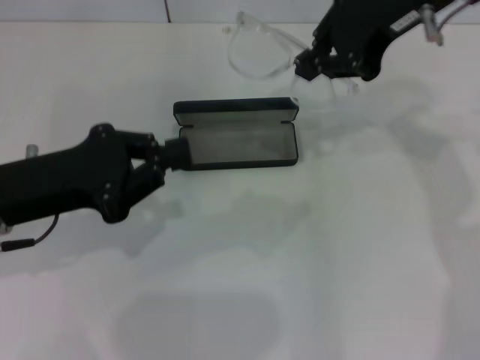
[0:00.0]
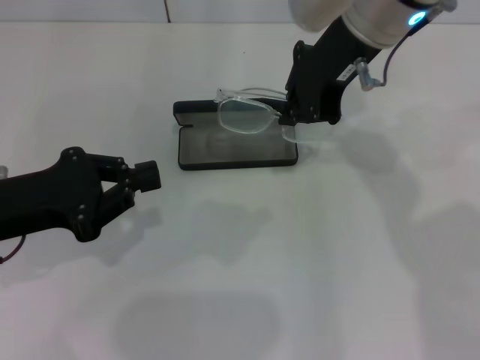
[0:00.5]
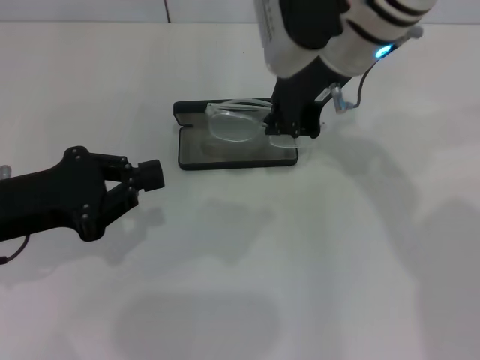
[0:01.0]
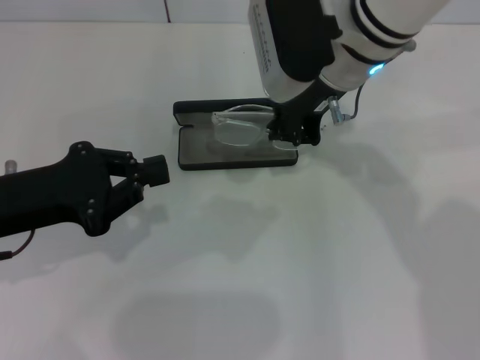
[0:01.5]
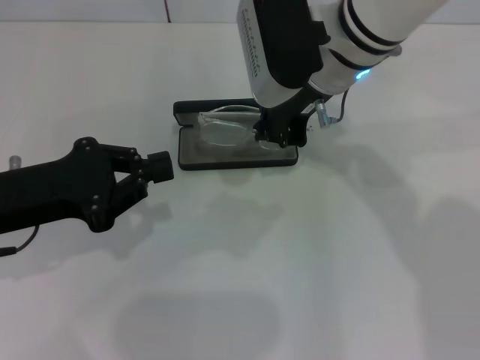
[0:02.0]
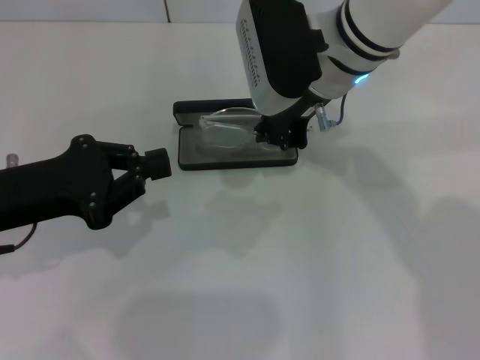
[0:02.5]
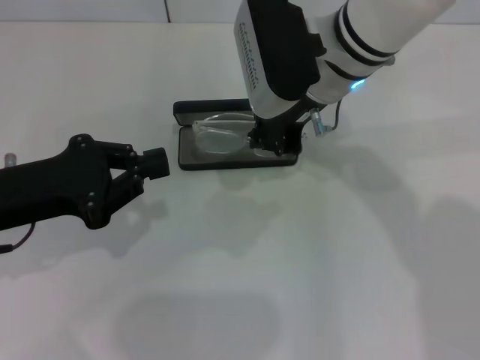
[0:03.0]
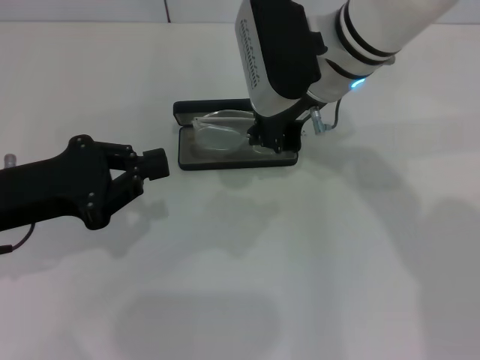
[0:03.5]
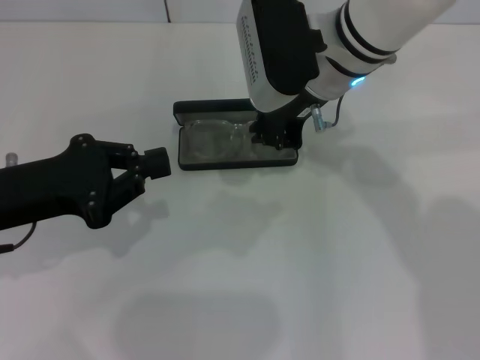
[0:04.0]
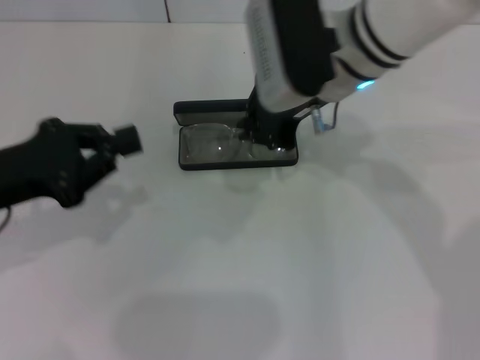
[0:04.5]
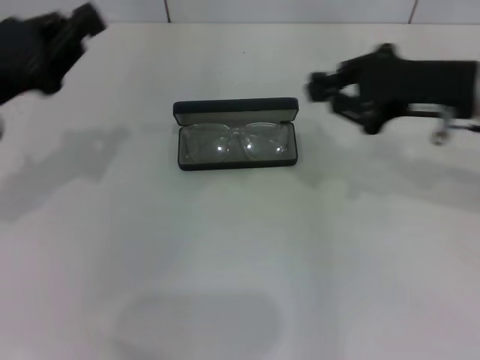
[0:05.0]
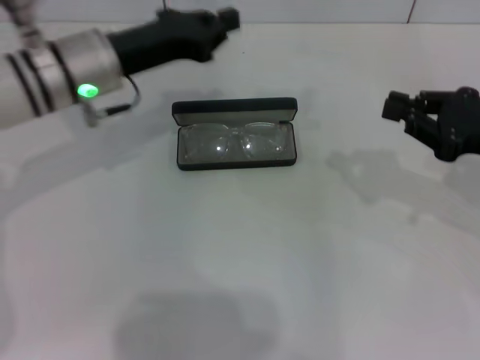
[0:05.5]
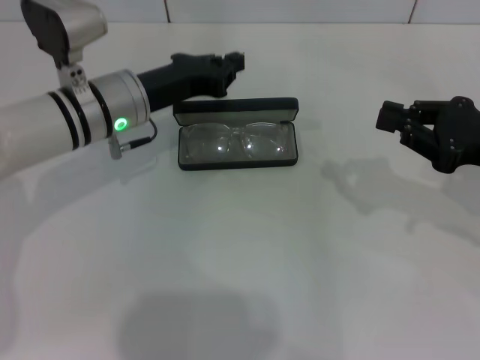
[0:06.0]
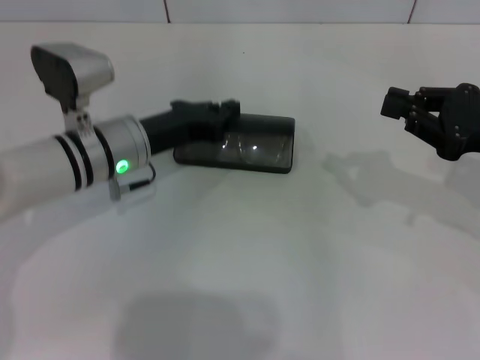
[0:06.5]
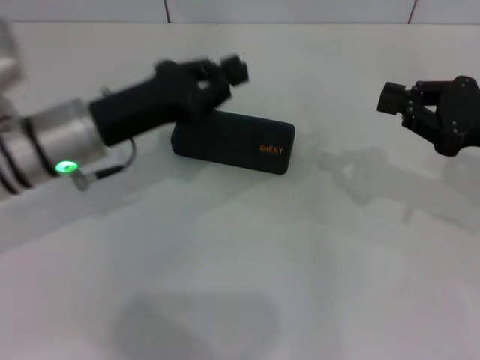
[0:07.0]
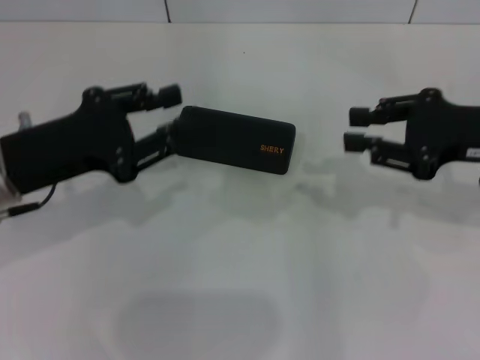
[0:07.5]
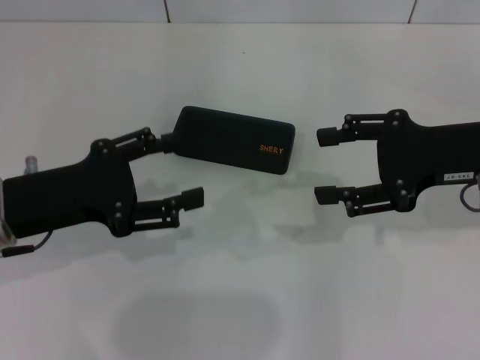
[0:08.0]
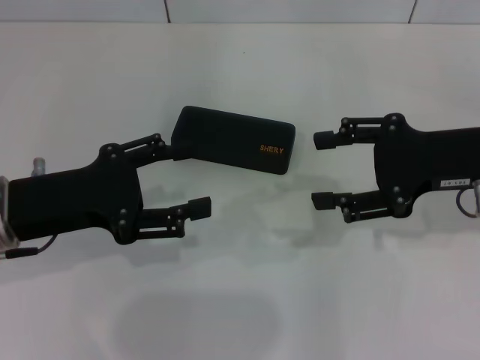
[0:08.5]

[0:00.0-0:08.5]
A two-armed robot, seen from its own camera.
Step, 0:00.0 to 0:04.0: Put the glasses into the case with your right hand.
Step, 0:05.0 to 0:06.5: Close the glasses case with your left hand.
0:00.0 to 0:02.0: The right gripper travels downward and to the left by approximately 15 cm.
0:02.0 to 0:04.0: The two grippers keep their place.
0:04.0 to 0:06.5: The right gripper moves to the right and backward, some 25 cm. Meanwhile the left gripper is displaced forward, to the right and downward by some 15 cm.
0:06.5 to 0:08.5: The left gripper goes about 15 cm backward, to the left and upward, and opens; the right gripper goes some 5 cm to the left, and opens.

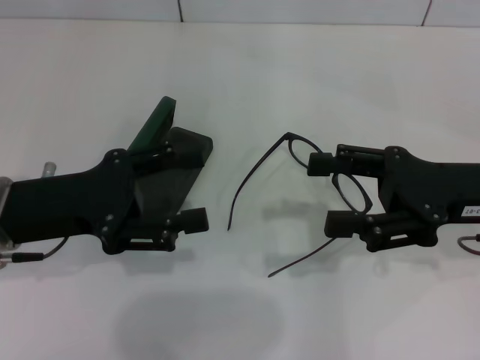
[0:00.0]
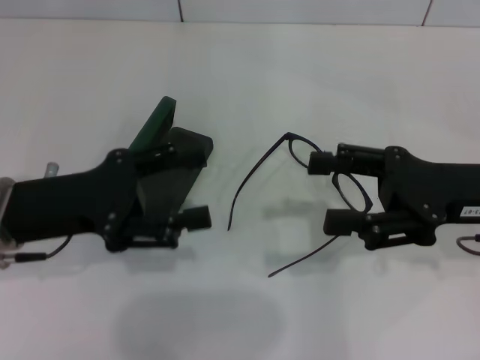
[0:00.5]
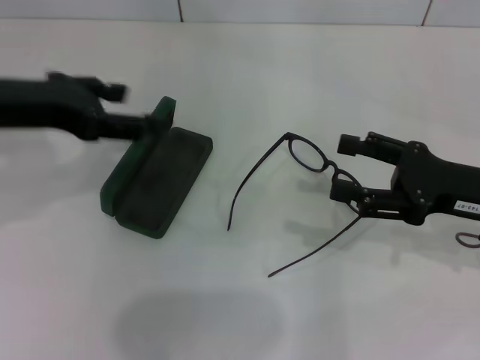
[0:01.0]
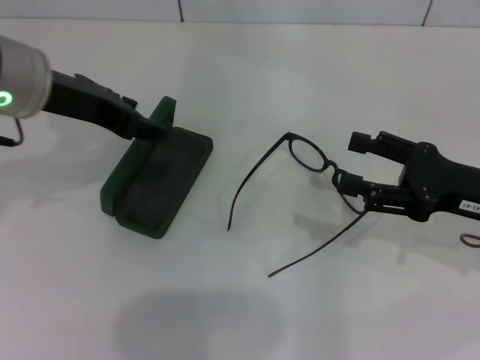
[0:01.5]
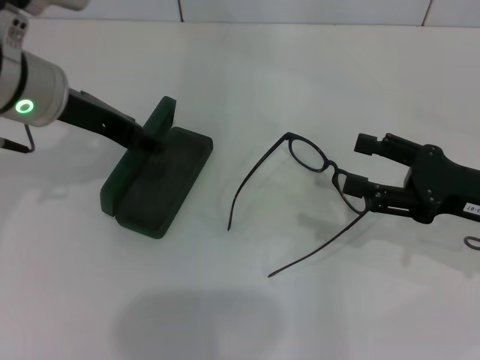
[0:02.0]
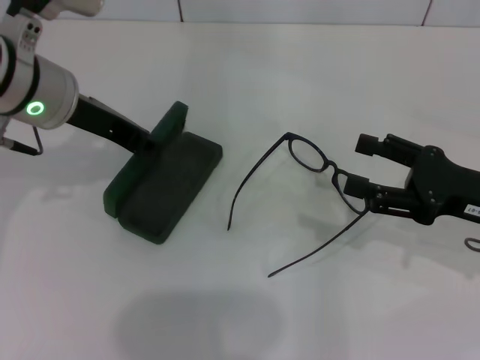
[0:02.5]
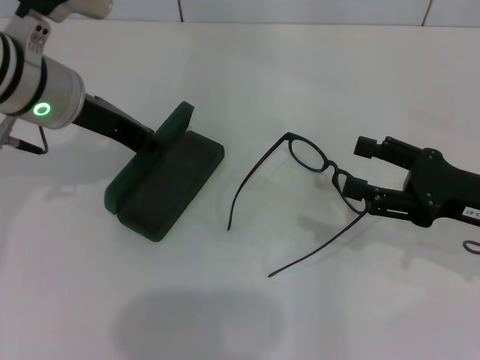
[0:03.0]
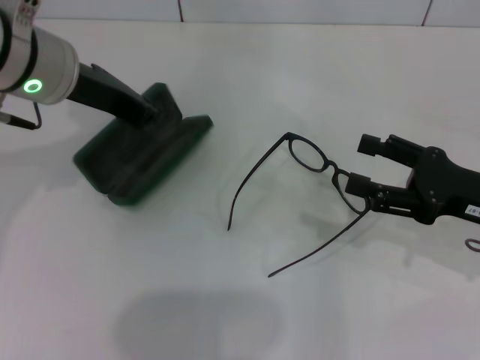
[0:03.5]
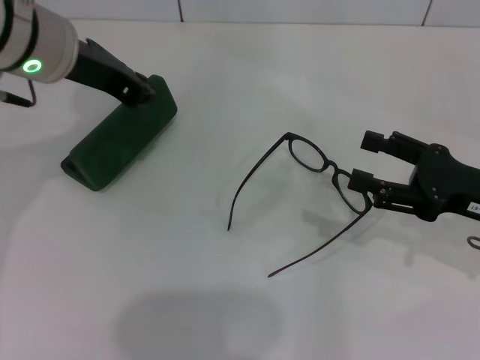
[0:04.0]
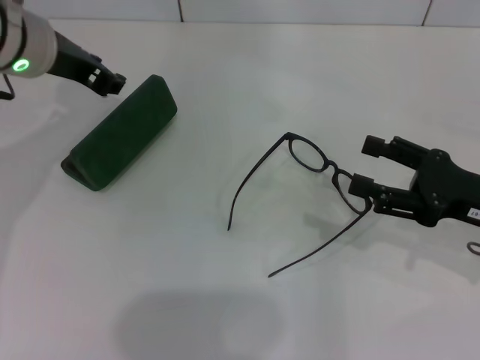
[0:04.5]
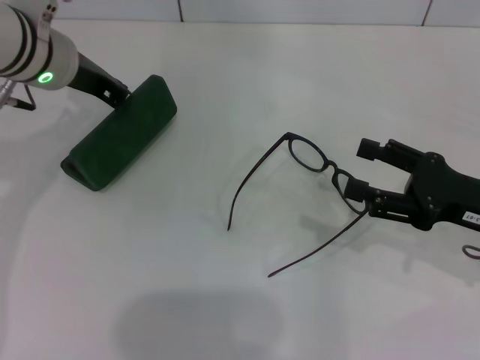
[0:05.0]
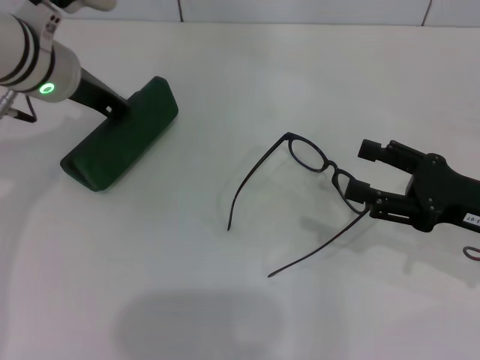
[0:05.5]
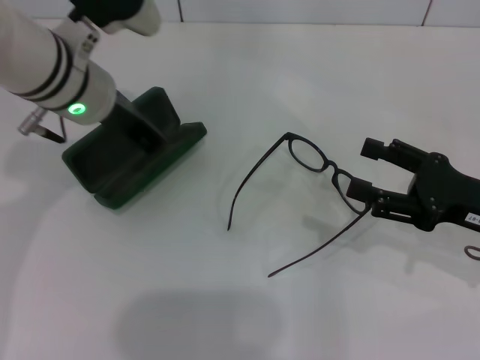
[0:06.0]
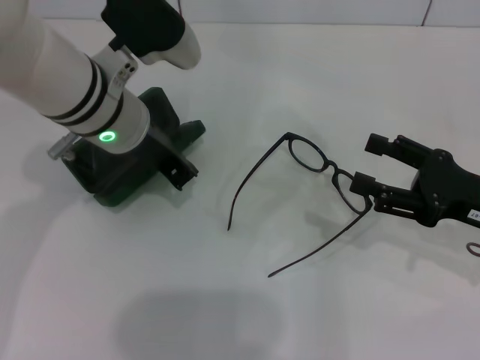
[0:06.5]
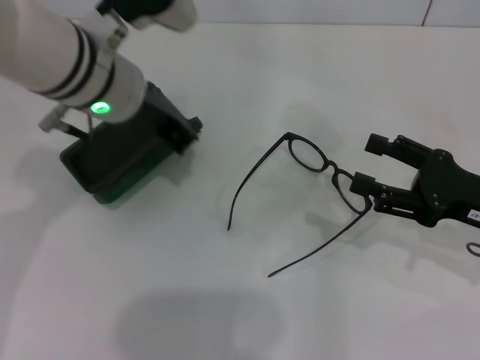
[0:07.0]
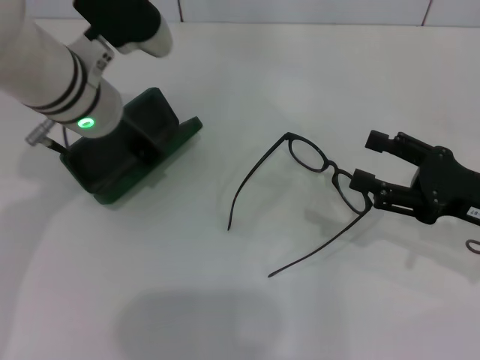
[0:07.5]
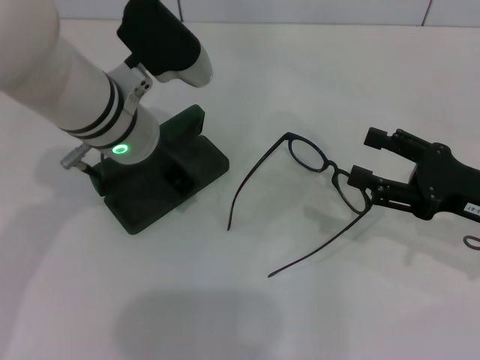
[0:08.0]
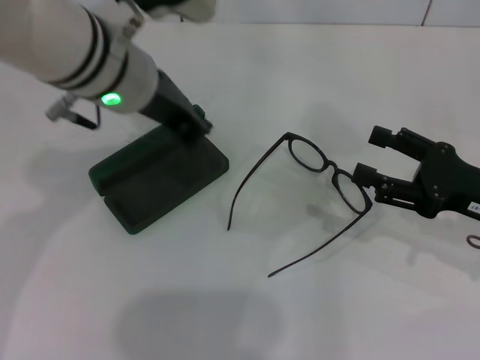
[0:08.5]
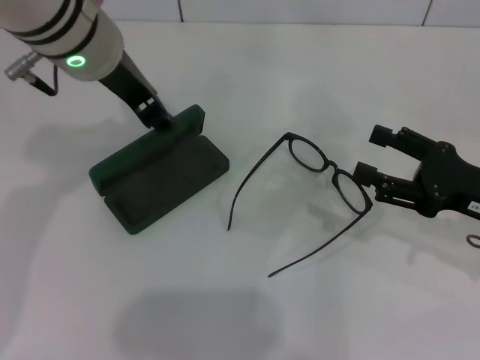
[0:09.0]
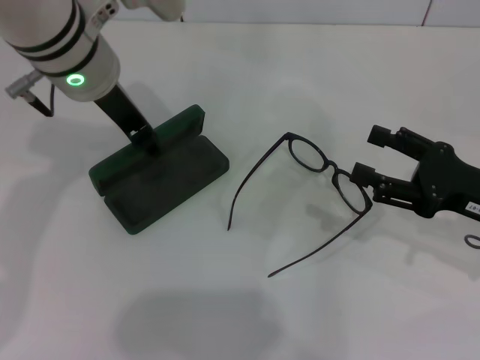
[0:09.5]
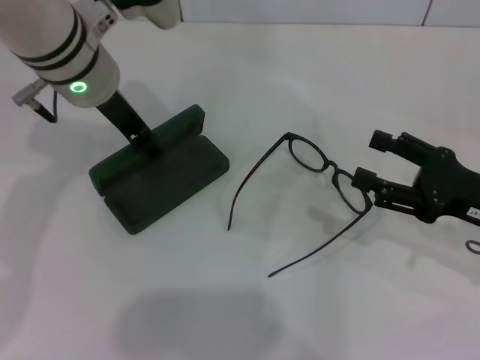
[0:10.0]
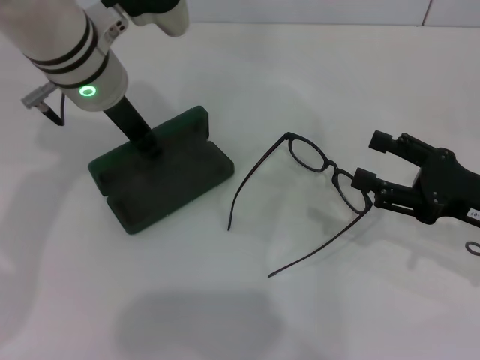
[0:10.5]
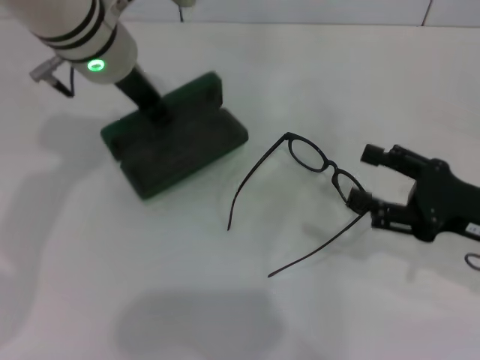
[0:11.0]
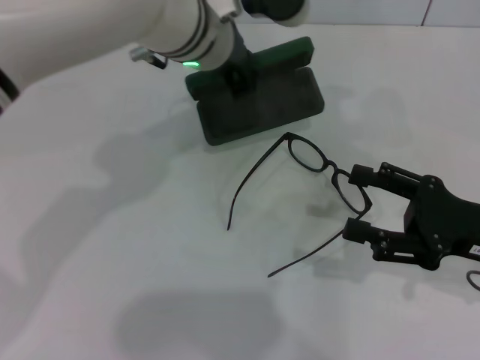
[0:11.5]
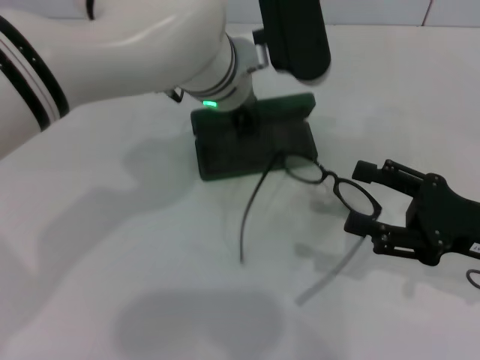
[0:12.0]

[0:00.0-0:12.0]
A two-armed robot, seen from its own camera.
Step, 0:00.0 to 0:10.0: Grab the glasses case with your left hand.
0:00.0 to 0:02.0: The right gripper ends up some 5 cm from where it was; the left gripper goes about 10 cm forward and upward.
0:02.0 to 0:04.0: The left gripper closes its fingers.
0:04.0 to 0:06.0: The left gripper goes roughly 5 cm downward, and opens, then closes again.
0:06.0 to 0:08.0: The grippers stay close to where they were, moving slightly.
0:08.0 to 0:10.0: The left gripper shifts by approximately 5 cm, and opens.
0:10.0 to 0:12.0: The left gripper heads to the right, covering some 10 cm, and closes its fingers.

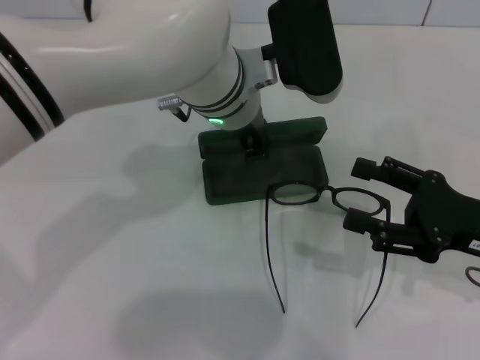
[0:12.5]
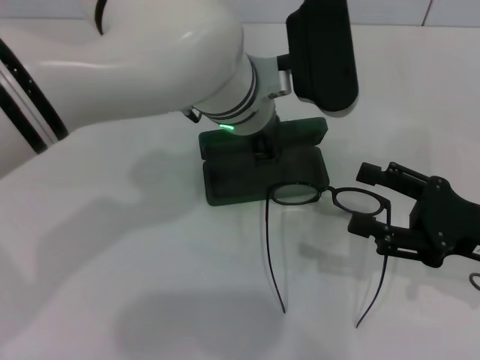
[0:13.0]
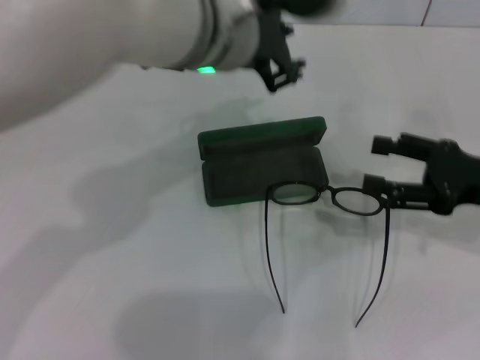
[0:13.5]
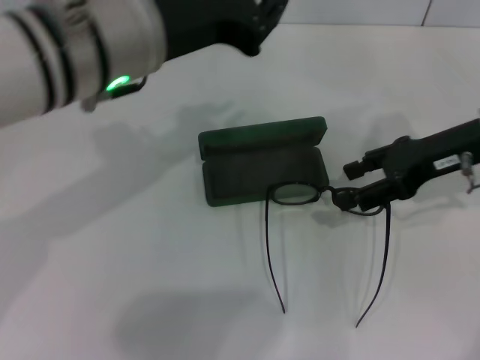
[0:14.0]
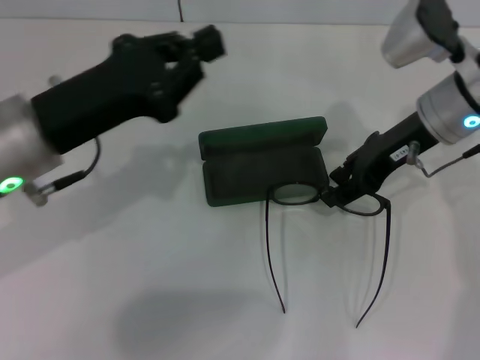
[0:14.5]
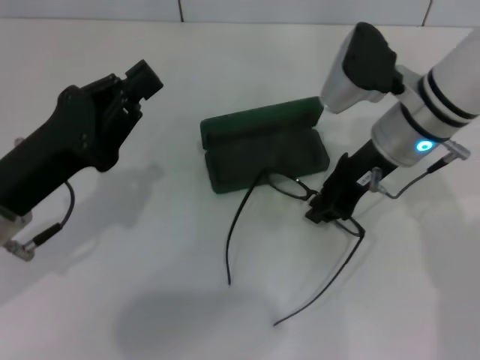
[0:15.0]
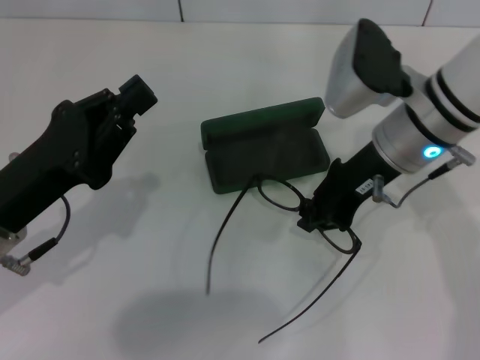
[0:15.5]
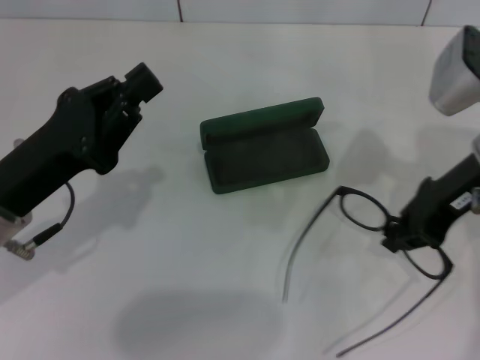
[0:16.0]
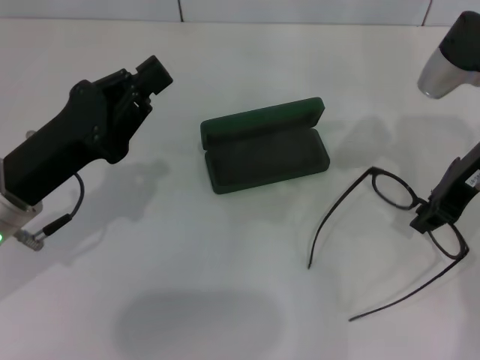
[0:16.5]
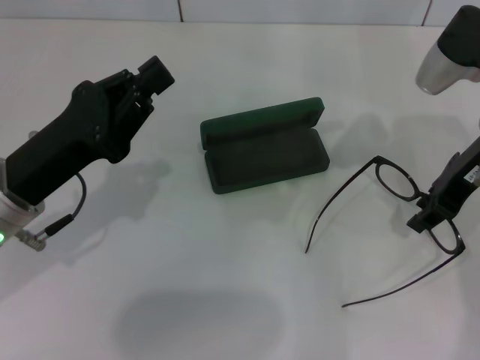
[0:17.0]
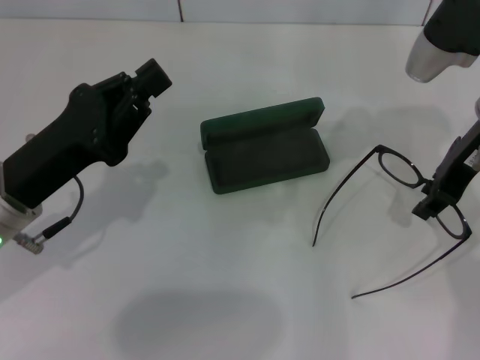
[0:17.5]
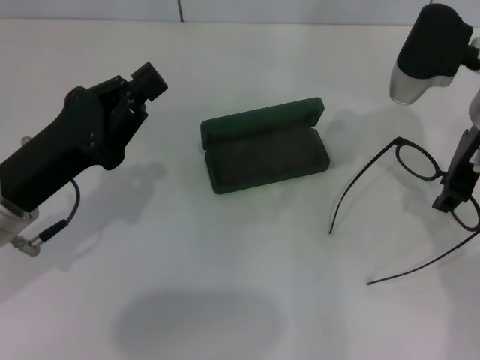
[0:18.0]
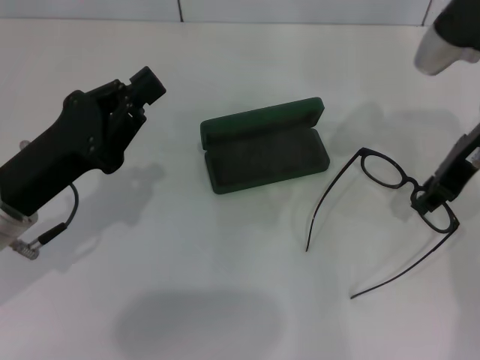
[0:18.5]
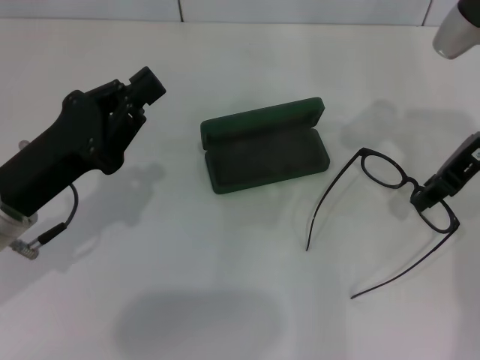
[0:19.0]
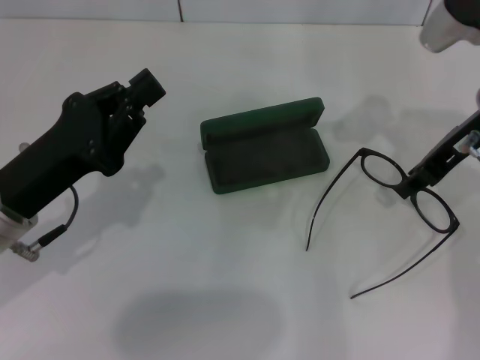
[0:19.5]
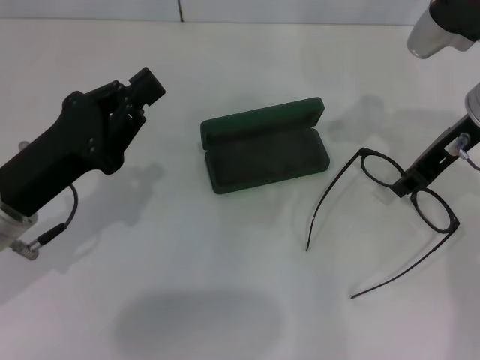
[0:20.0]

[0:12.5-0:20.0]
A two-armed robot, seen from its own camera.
0:12.5 to 0:14.5: The right gripper moves forward, to the left and upward, roughly 20 cm. The left gripper heads to the left and backward, covering roughly 20 cm.
0:14.5 to 0:16.5: The left gripper is displaced downward by approximately 5 cm; the right gripper changes place by roughly 5 cm, and closes.
0:16.5 to 0:18.0: The grippers move only a little.
